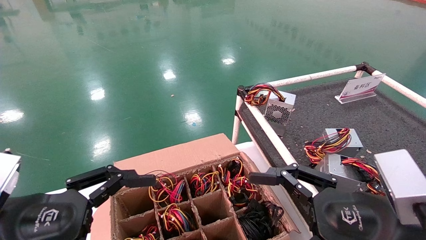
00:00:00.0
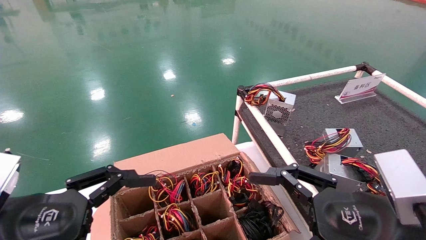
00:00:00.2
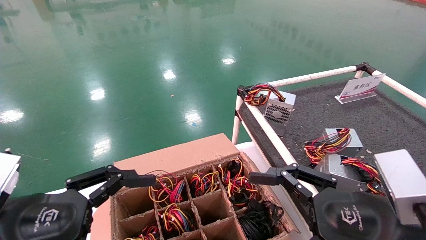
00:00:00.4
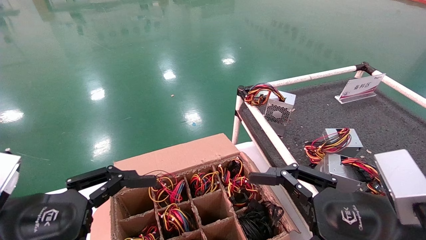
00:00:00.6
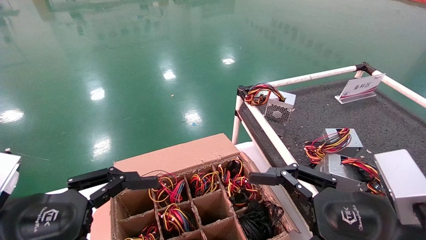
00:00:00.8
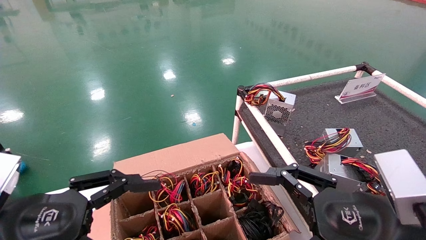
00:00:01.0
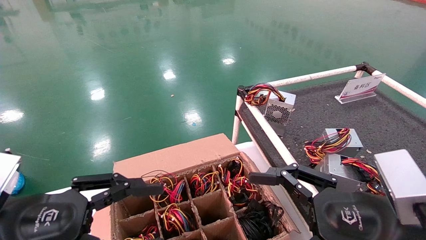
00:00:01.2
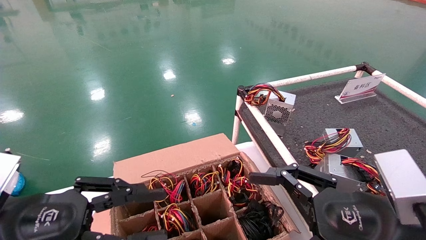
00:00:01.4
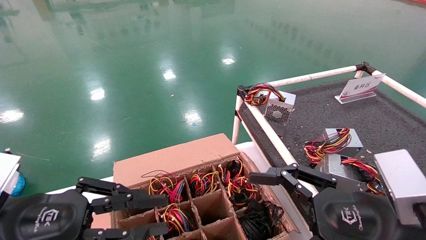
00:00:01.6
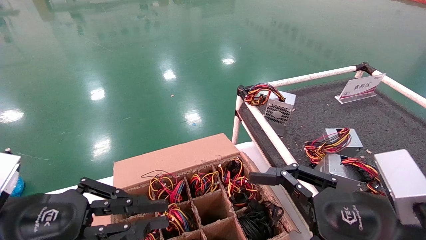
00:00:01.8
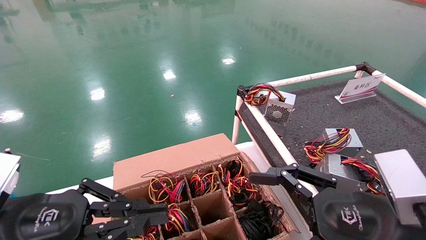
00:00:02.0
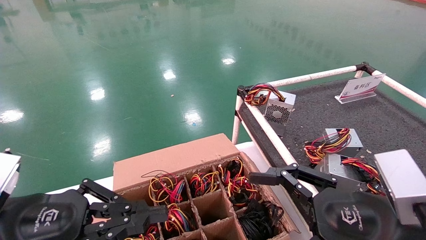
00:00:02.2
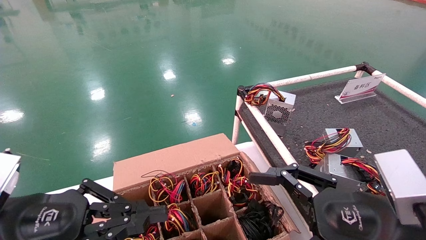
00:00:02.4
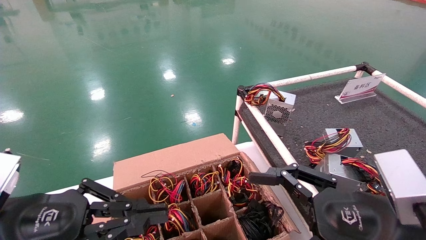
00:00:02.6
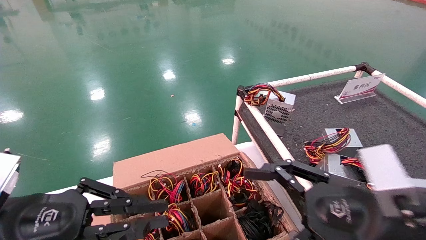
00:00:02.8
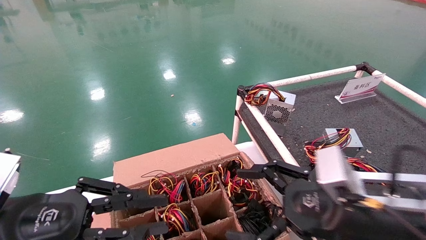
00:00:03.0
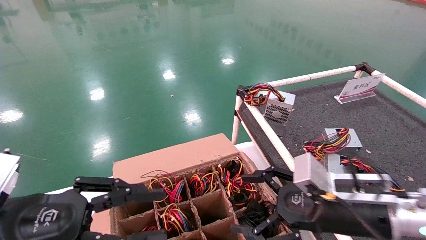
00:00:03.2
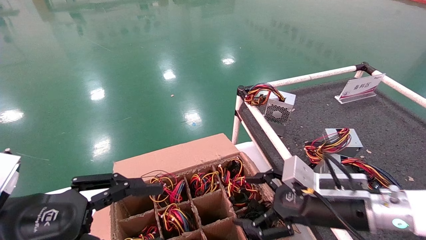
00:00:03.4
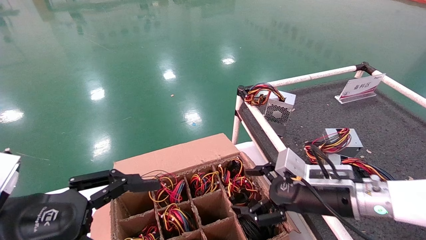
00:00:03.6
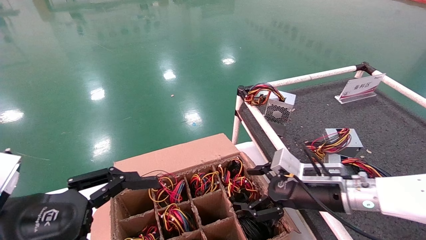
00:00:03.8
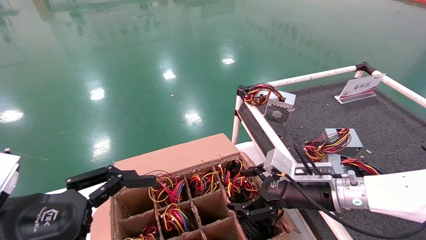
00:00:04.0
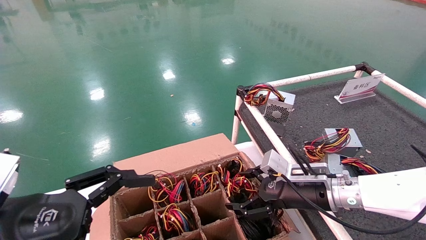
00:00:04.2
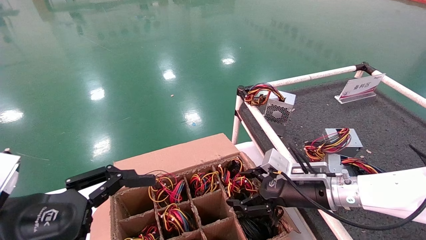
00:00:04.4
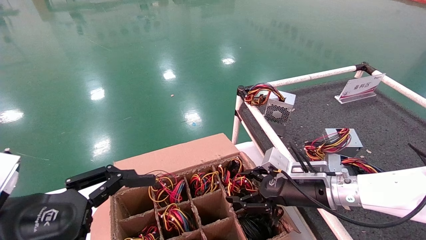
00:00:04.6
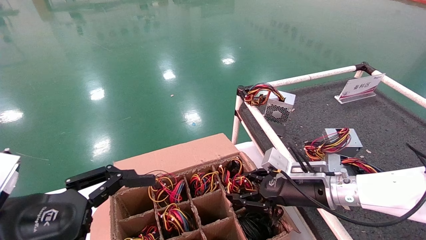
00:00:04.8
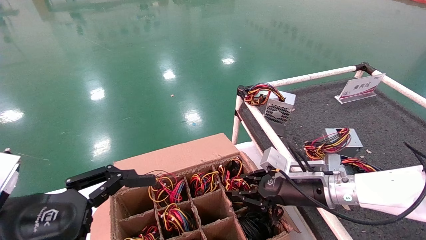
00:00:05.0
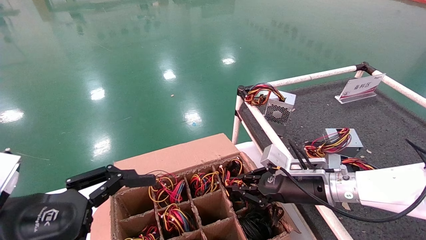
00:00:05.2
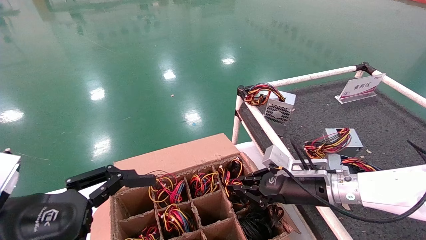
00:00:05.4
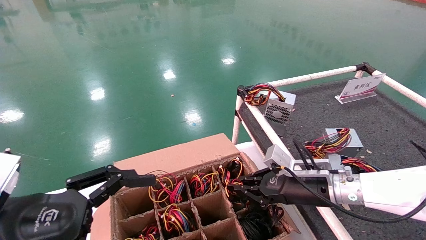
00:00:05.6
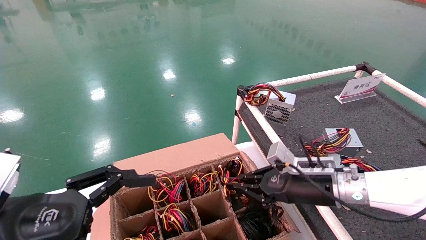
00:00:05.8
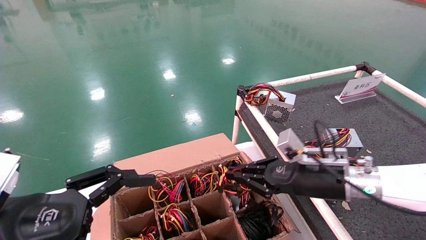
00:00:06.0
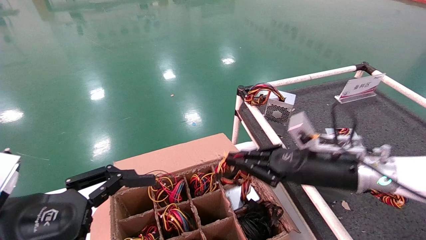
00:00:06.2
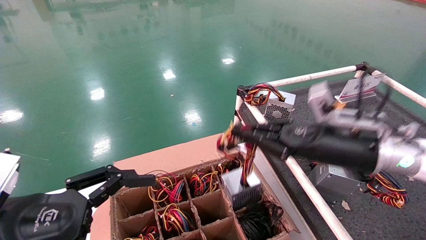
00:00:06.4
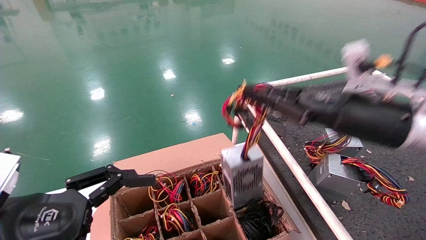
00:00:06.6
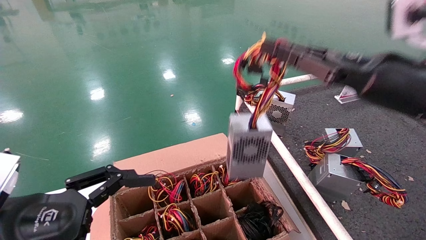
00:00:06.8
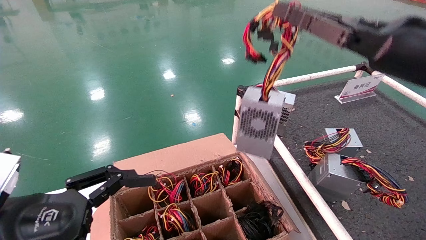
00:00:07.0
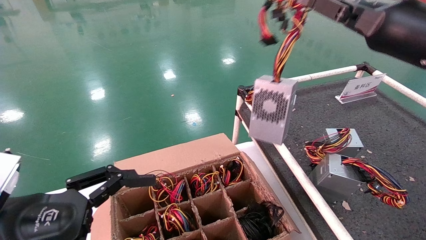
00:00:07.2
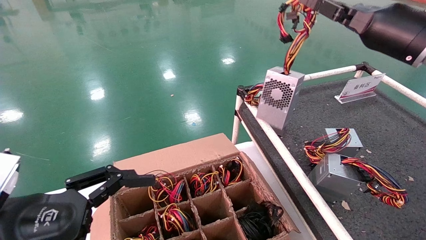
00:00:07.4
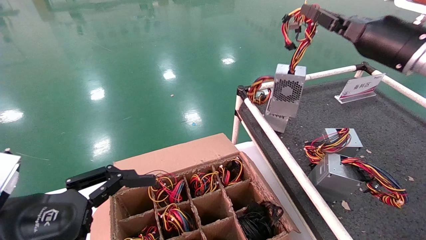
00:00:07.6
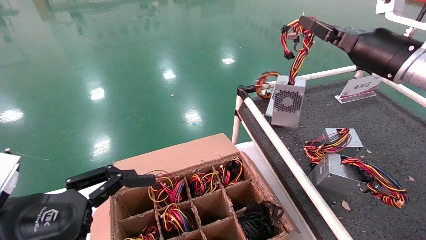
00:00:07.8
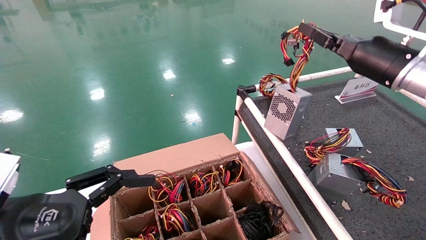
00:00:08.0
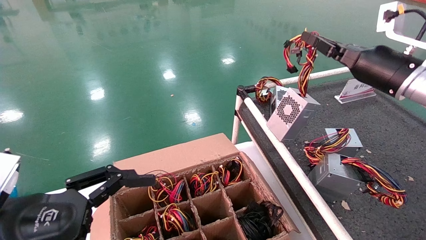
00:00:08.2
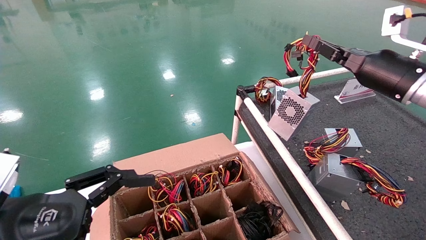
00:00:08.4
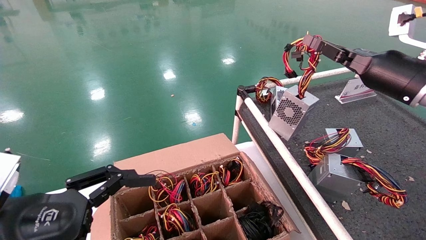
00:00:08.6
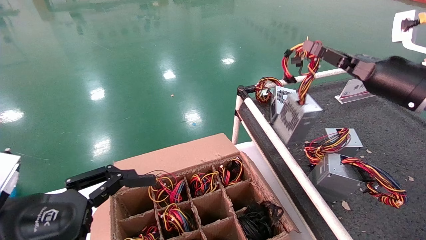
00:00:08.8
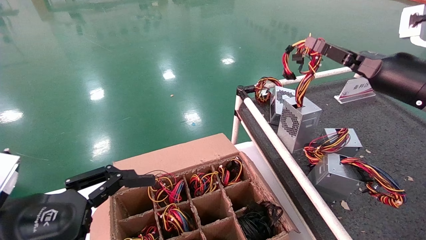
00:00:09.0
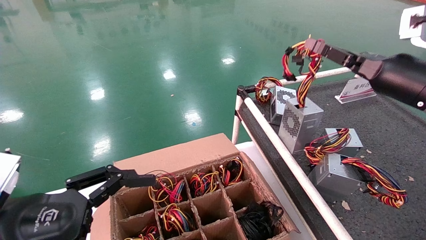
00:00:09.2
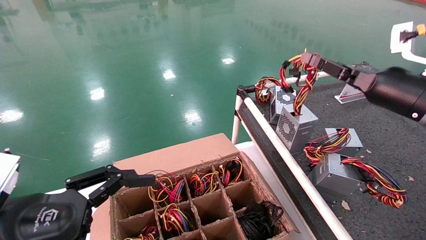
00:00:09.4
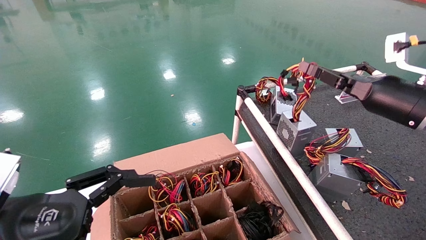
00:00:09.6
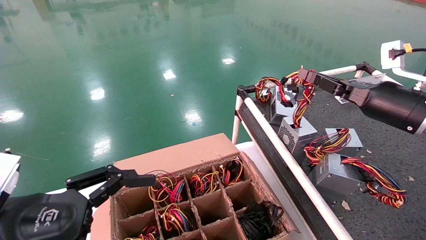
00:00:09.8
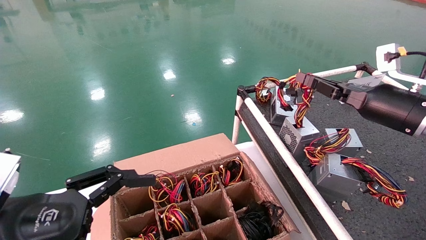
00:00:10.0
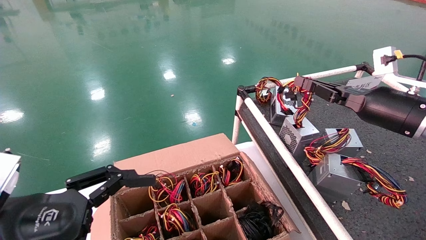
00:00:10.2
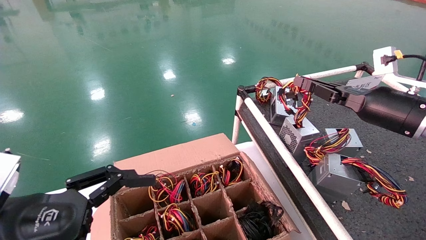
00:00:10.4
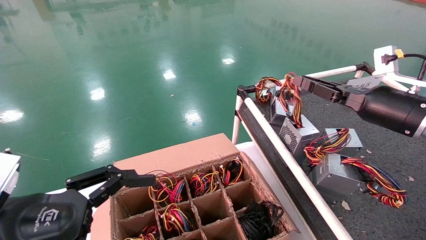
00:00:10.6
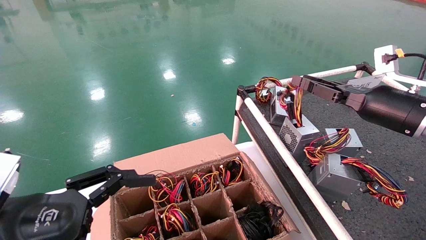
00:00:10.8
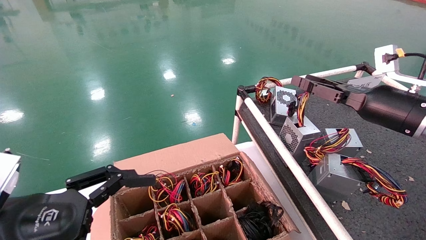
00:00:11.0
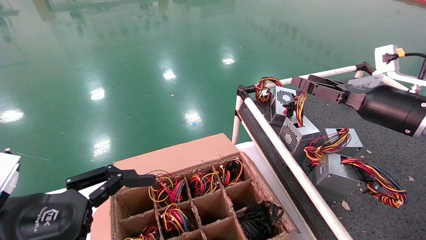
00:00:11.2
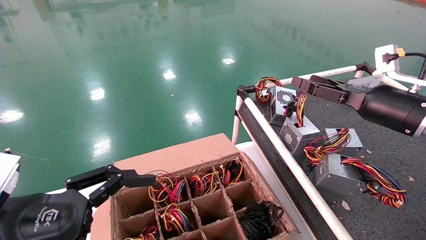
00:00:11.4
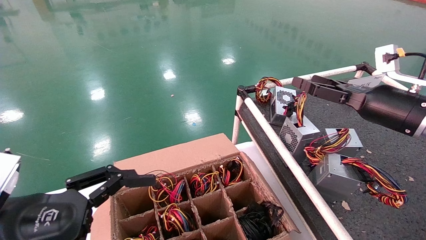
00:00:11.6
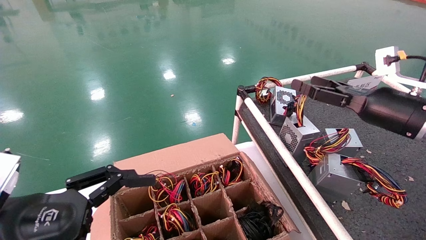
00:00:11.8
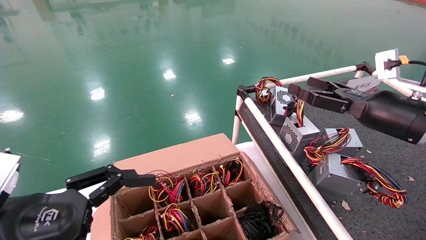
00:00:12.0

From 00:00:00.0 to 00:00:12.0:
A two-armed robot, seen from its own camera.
Step, from 00:00:03.0 to 00:00:05.8: Grab and lift the power supply from the large box.
Step, from 00:00:06.0 to 00:00:10.8: Place the power supply on the operating table.
From 00:00:00.0 to 00:00:01.6: The left gripper closes its fingers.
From 00:00:01.6 to 00:00:03.0: The right gripper changes place by approximately 5 cm.
From 00:00:03.0 to 00:00:04.4: The right gripper heads forward, covering some 15 cm. The left gripper opens.
From 00:00:04.4 to 00:00:06.0: The right gripper closes its fingers.
From 00:00:06.0 to 00:00:07.6: The right gripper shifts roughly 25 cm upward and to the right.
From 00:00:07.6 to 00:00:09.0: The right gripper shifts some 5 cm downward.
From 00:00:09.0 to 00:00:10.4: There are only small adjustments of the grippers.
From 00:00:10.4 to 00:00:12.0: The right gripper opens up.

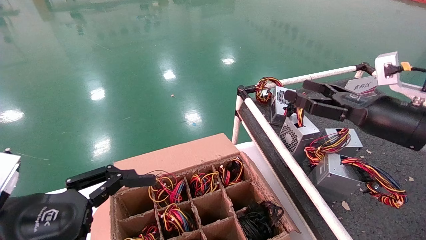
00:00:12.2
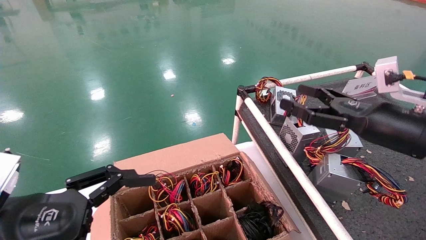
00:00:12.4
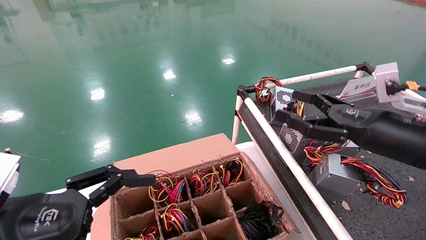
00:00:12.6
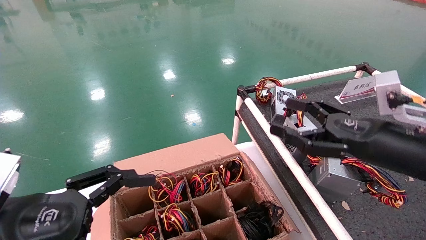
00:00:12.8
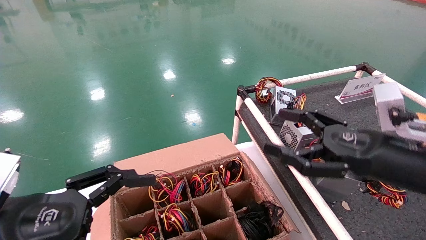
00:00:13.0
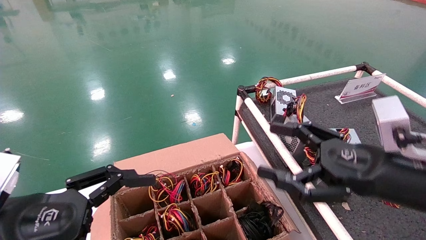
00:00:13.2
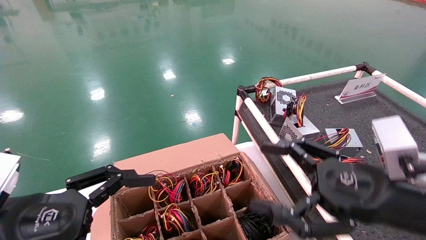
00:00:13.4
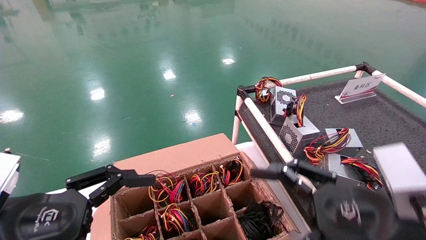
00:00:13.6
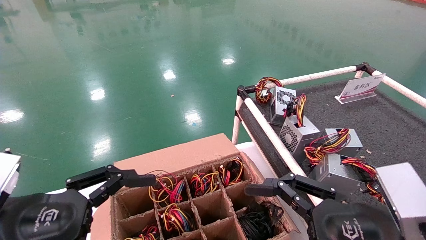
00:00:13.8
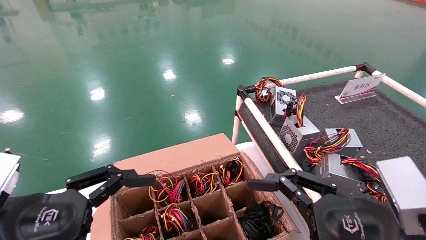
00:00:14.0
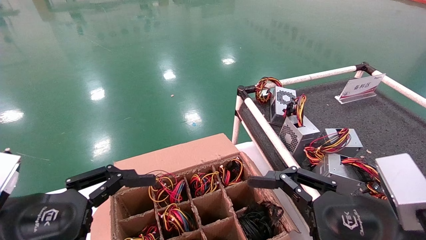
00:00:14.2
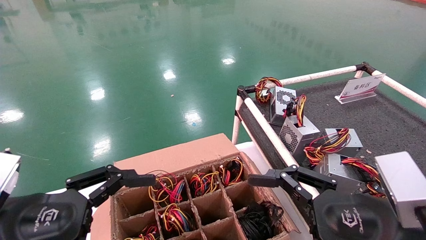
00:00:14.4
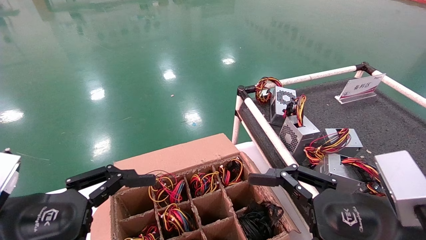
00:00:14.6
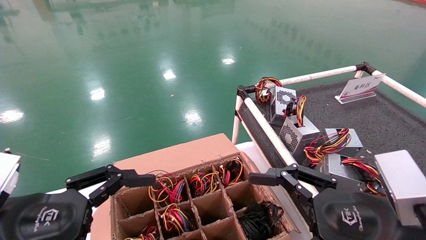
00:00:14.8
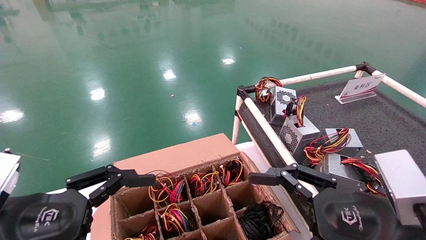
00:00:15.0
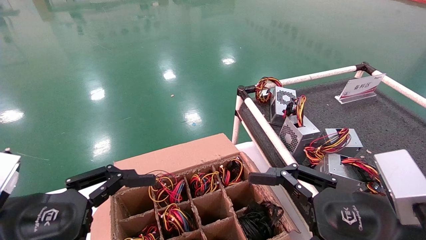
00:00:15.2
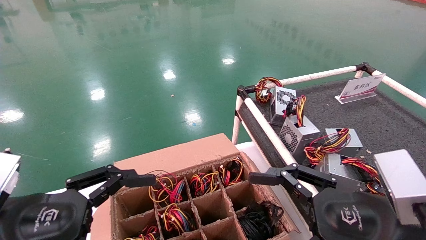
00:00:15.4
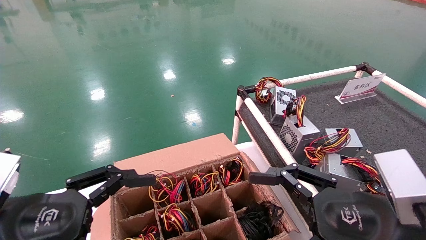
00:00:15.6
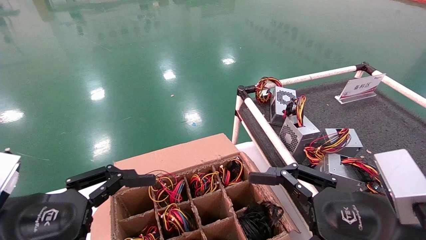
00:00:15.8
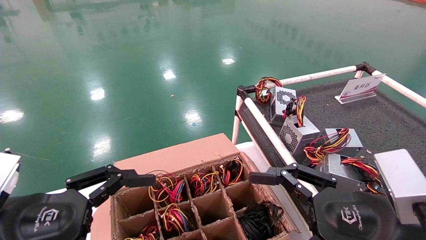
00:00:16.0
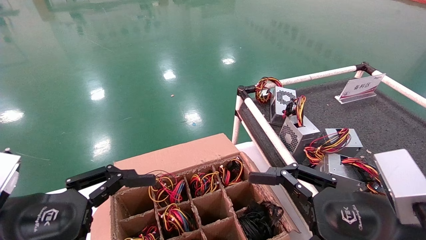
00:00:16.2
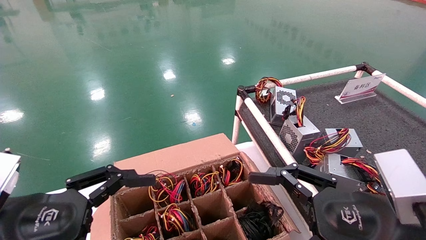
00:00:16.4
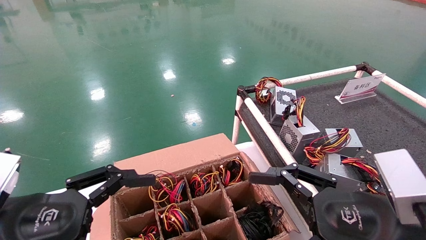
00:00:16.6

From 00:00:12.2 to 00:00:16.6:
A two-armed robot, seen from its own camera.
From 00:00:12.2 to 00:00:13.6: The right gripper travels backward, to the left and downward by roughly 15 cm.
From 00:00:13.6 to 00:00:15.2: There are only small adjustments of the grippers.
From 00:00:15.2 to 00:00:16.6: The two grippers keep their place.
